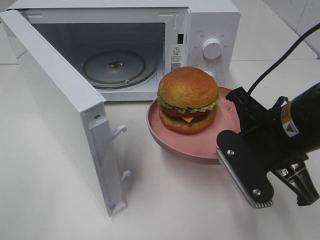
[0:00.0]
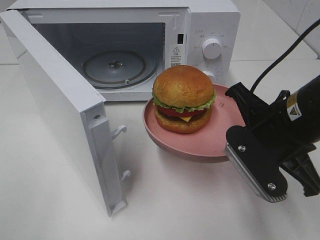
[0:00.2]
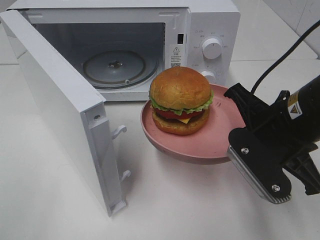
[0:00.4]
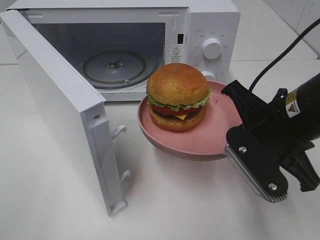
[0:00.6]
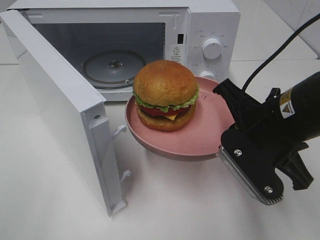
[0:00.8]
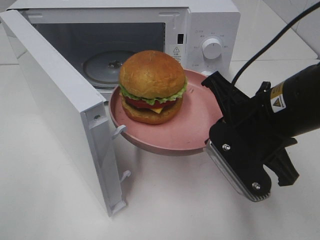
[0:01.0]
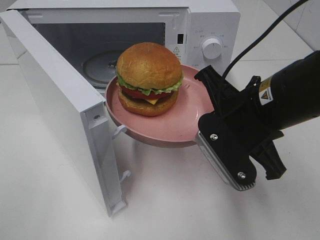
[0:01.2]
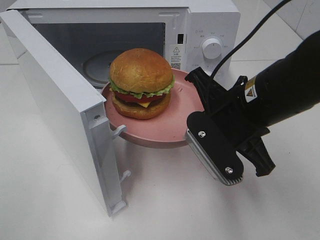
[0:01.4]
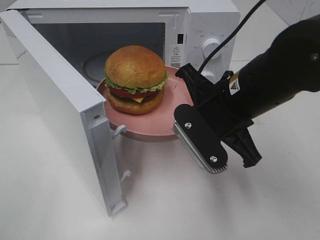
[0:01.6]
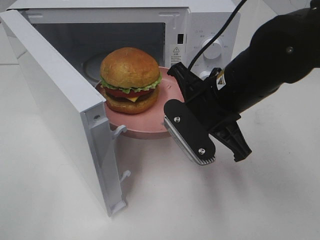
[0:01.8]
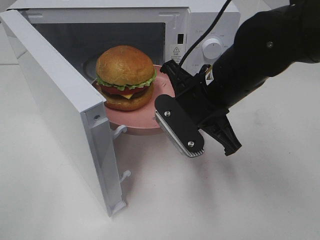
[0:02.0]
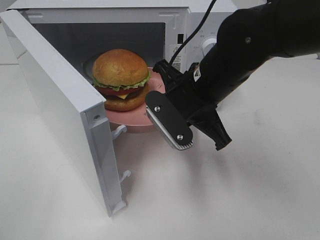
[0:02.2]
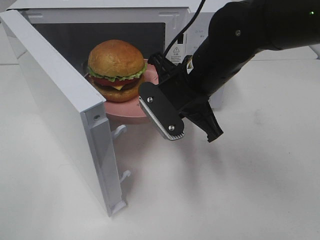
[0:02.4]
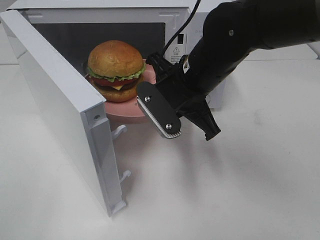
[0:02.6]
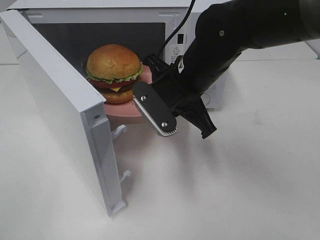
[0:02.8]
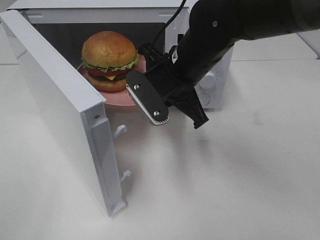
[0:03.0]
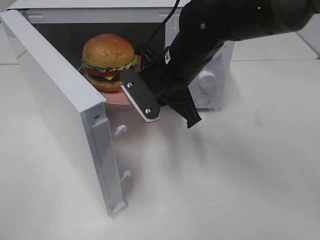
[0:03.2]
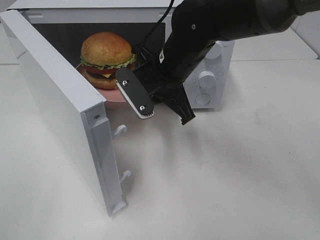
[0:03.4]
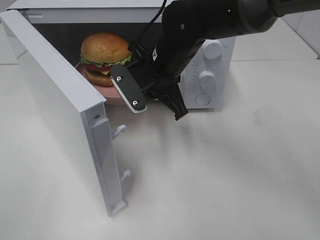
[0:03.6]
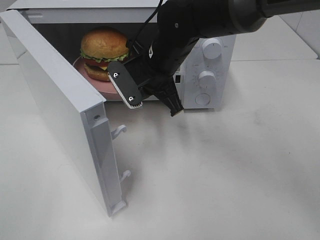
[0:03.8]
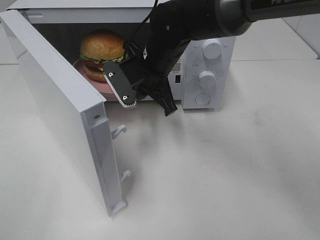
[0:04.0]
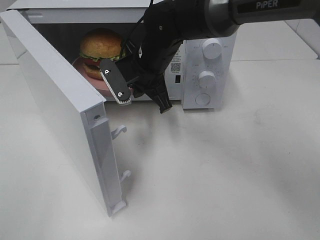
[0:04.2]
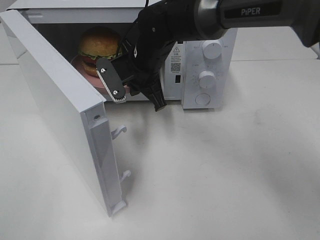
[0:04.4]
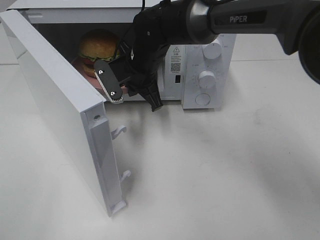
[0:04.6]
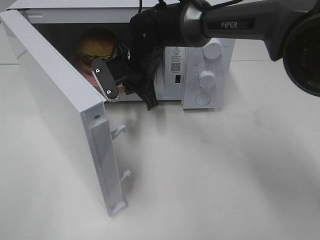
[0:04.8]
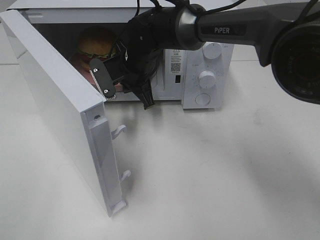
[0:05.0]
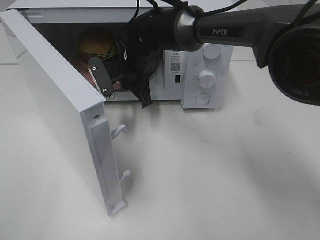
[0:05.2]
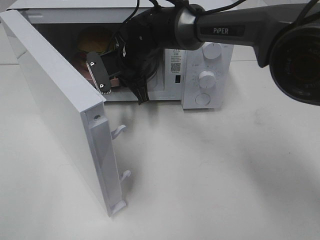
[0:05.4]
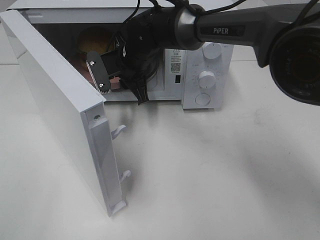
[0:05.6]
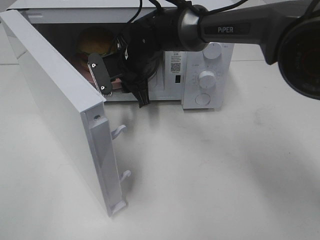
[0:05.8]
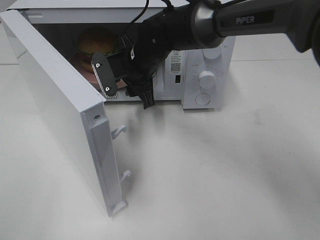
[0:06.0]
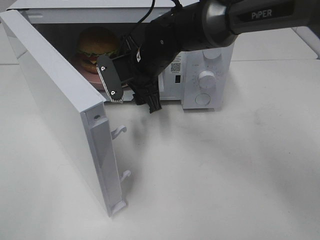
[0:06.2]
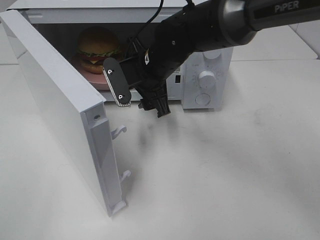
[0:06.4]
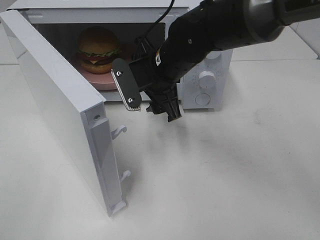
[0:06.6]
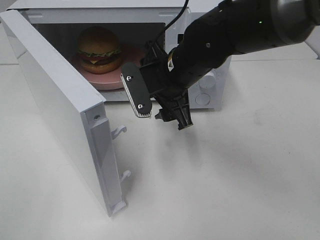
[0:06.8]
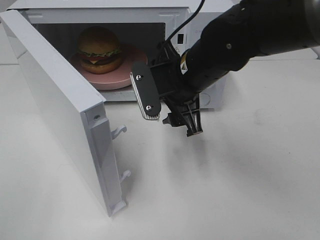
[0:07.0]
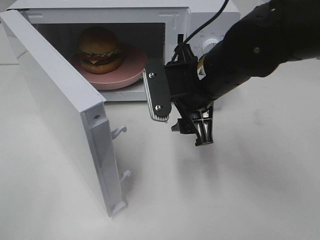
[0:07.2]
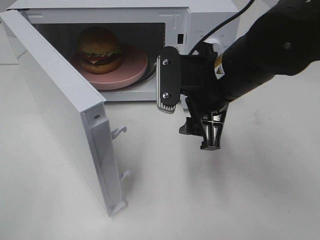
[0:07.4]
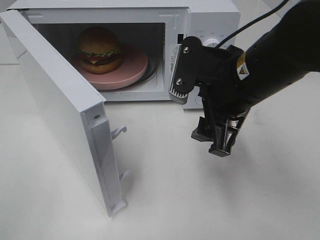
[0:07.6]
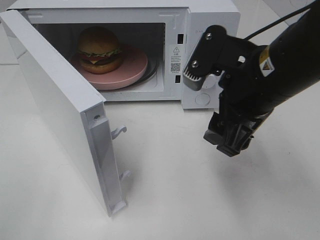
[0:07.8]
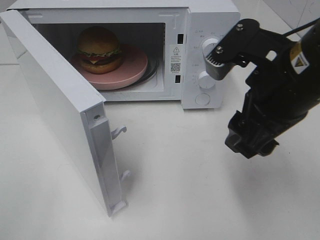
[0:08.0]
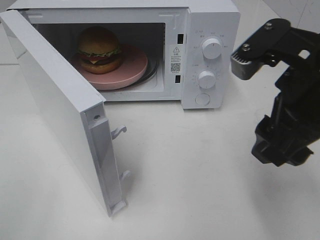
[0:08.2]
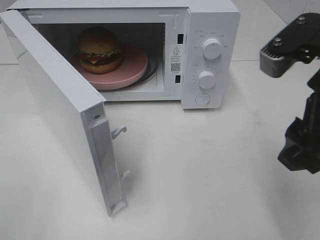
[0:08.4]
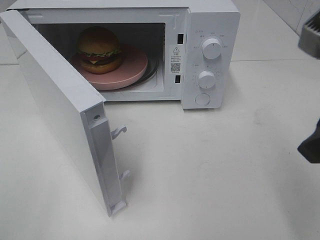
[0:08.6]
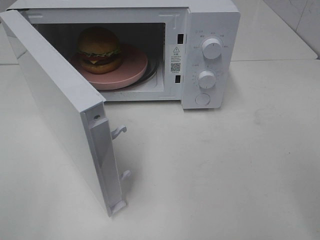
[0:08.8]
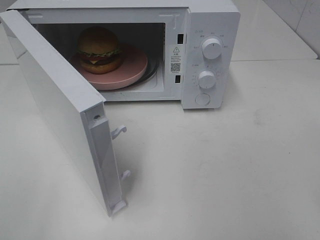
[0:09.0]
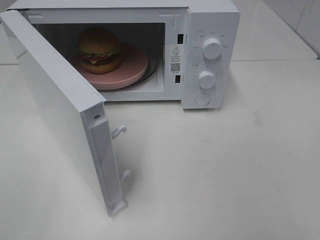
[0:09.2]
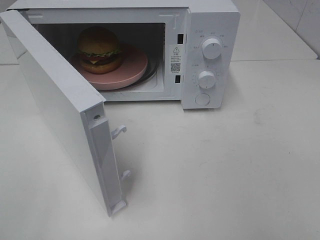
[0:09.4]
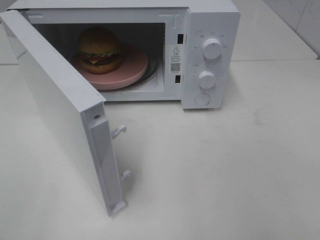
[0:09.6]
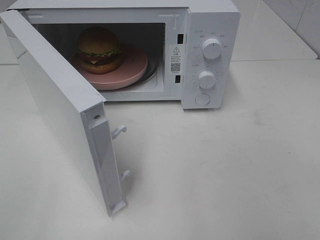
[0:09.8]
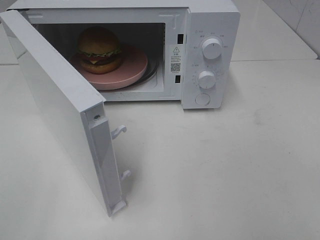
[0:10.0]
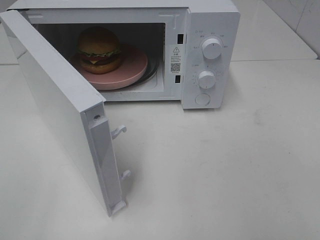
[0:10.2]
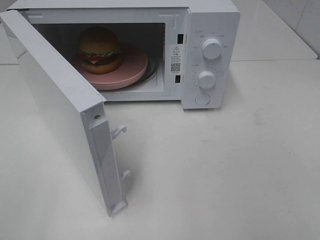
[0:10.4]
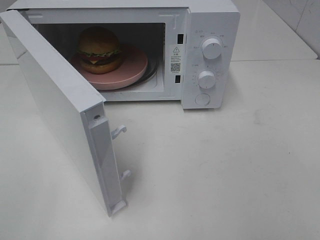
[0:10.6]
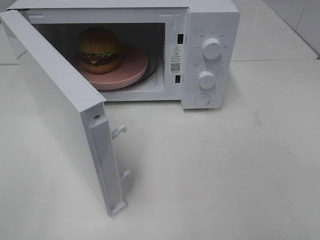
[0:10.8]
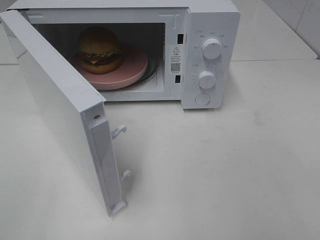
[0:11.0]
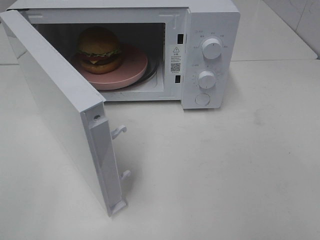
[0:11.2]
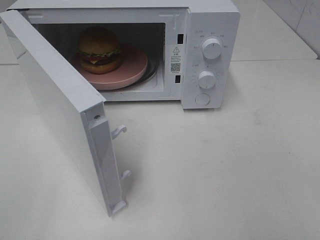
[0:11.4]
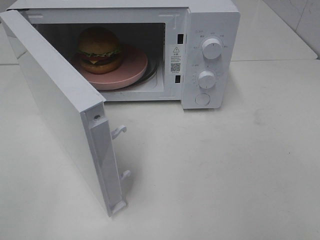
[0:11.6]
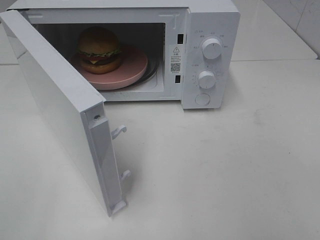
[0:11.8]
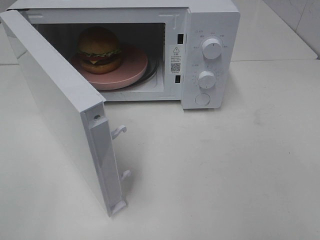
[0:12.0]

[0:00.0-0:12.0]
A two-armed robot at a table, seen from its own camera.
Task of the whole recording: Heat the burger.
Step, 0:00.0 to 0:06.0: Right hand: place the plate in the microwave.
0:00.0 to 0:01.6: The right gripper shifts by approximately 5 cm.
0:01.6 to 0:03.0: The right gripper moves forward and to the left, roughly 10 cm.
0:03.0 to 0:04.4: The right gripper heads forward and to the left, covering about 10 cm.
0:04.4 to 0:06.0: The right gripper opens.
0:06.0 to 0:07.6: The right gripper shifts roughly 20 cm backward, to the right and upward.
0:07.6 to 0:09.0: The right gripper heads to the right, backward and upward, covering roughly 20 cm.
0:10.4 to 0:12.0: Neither gripper changes place.

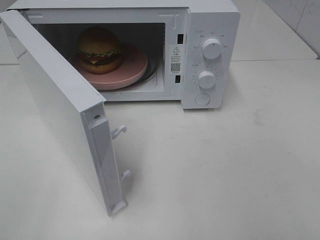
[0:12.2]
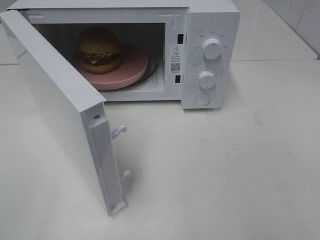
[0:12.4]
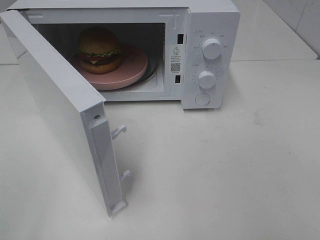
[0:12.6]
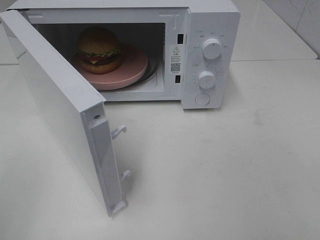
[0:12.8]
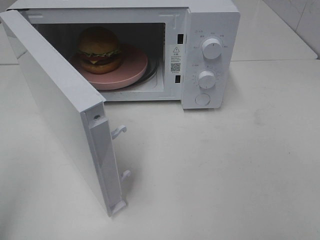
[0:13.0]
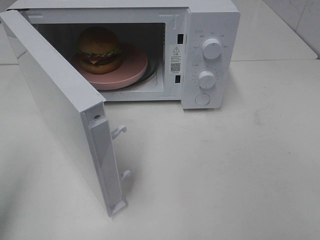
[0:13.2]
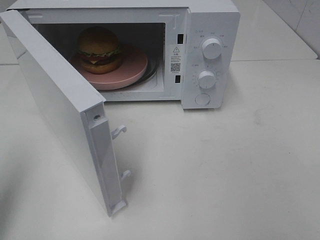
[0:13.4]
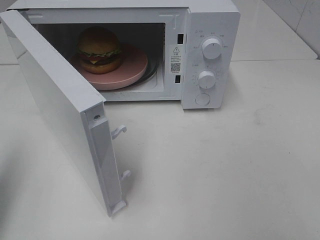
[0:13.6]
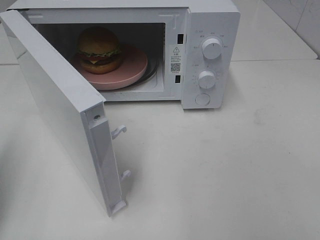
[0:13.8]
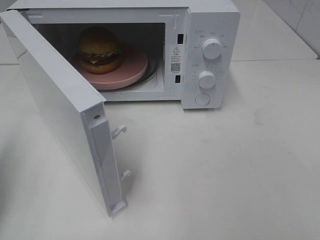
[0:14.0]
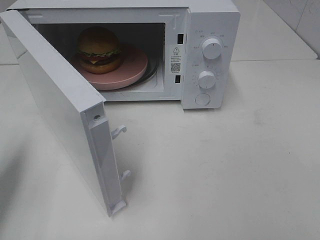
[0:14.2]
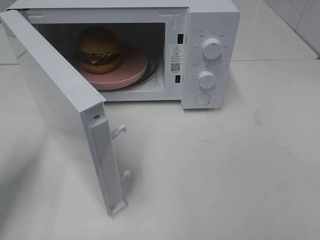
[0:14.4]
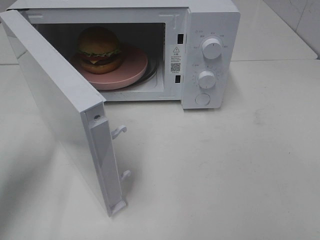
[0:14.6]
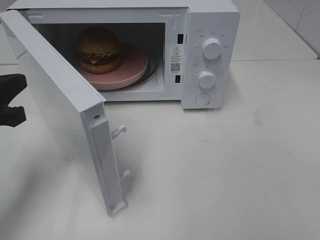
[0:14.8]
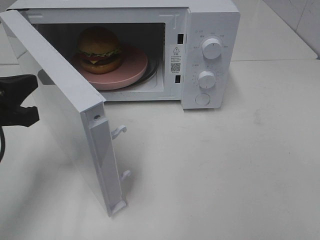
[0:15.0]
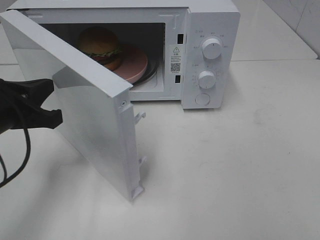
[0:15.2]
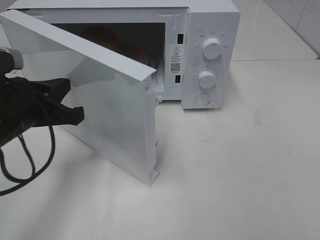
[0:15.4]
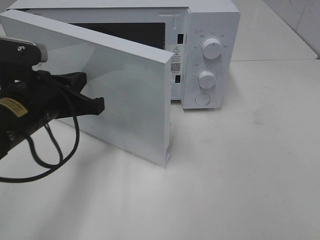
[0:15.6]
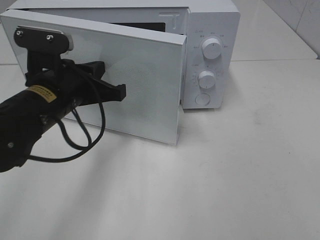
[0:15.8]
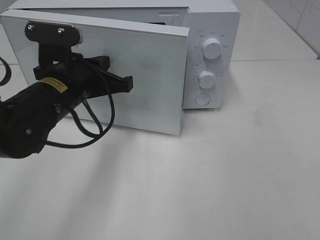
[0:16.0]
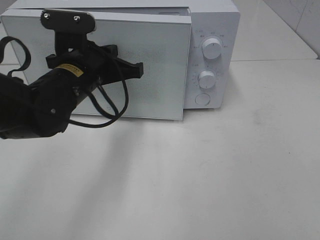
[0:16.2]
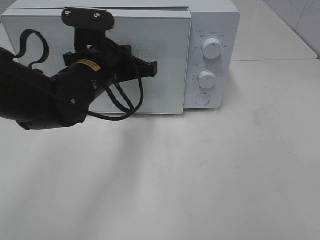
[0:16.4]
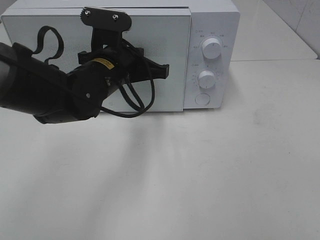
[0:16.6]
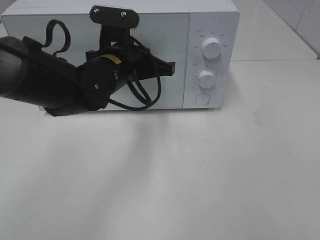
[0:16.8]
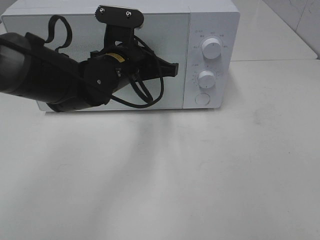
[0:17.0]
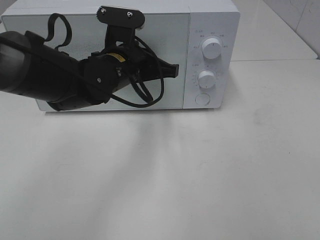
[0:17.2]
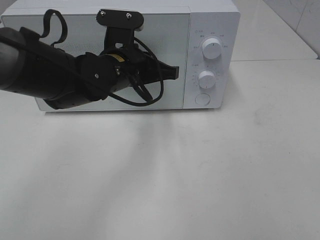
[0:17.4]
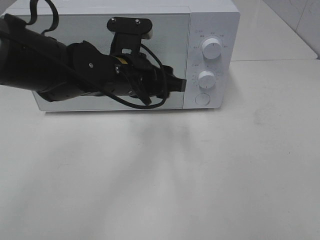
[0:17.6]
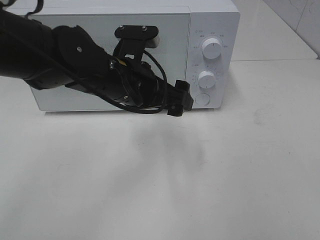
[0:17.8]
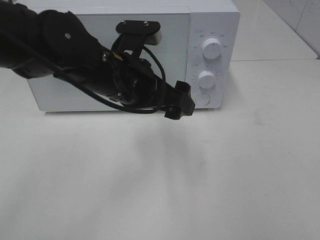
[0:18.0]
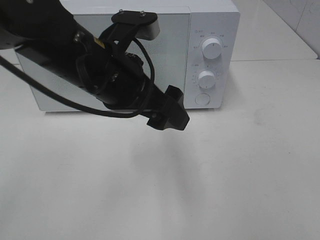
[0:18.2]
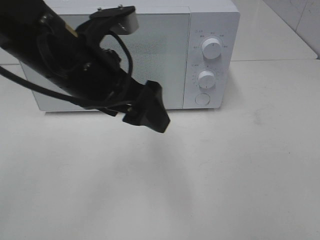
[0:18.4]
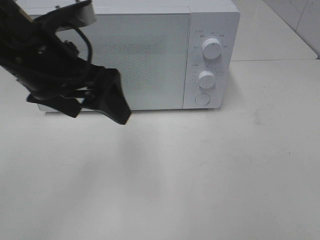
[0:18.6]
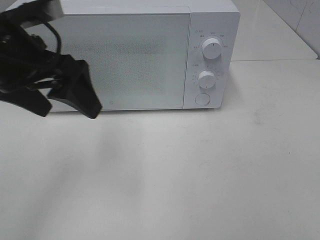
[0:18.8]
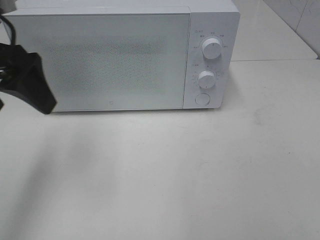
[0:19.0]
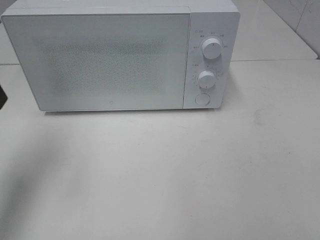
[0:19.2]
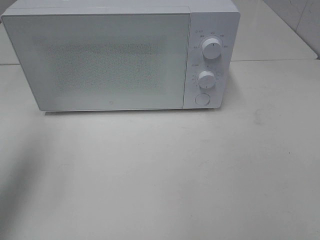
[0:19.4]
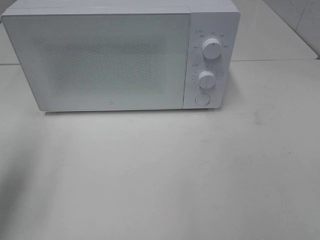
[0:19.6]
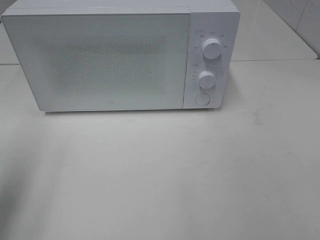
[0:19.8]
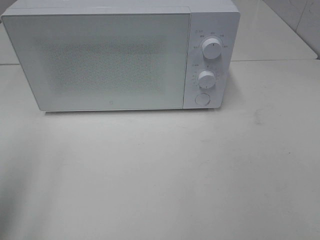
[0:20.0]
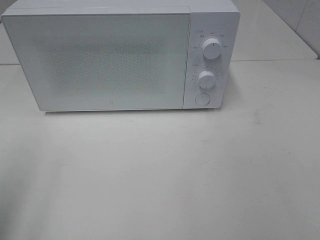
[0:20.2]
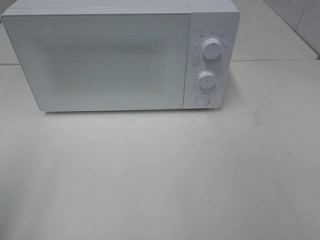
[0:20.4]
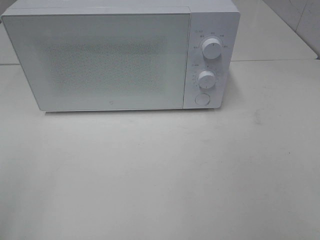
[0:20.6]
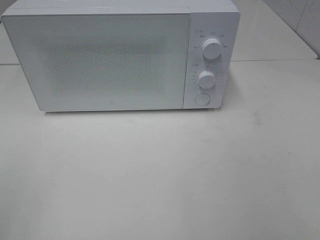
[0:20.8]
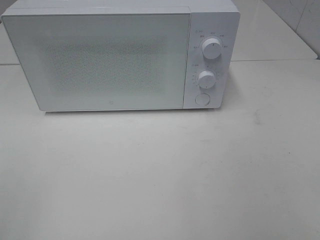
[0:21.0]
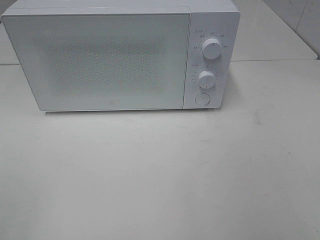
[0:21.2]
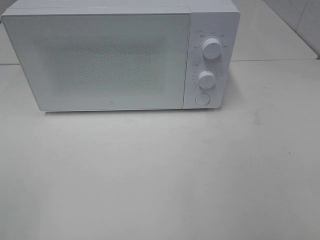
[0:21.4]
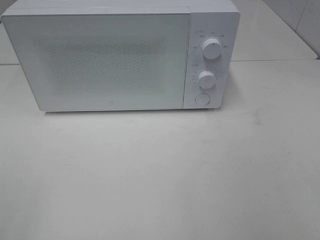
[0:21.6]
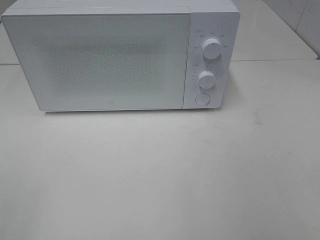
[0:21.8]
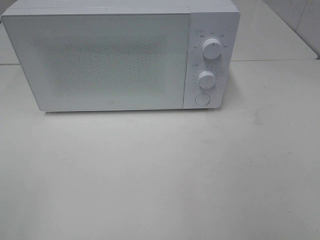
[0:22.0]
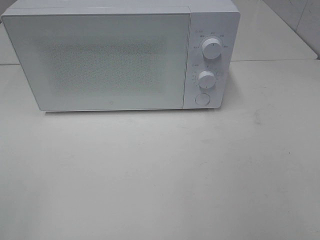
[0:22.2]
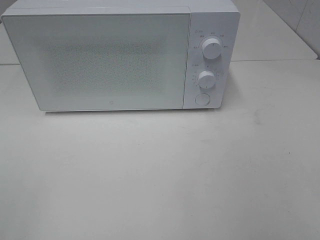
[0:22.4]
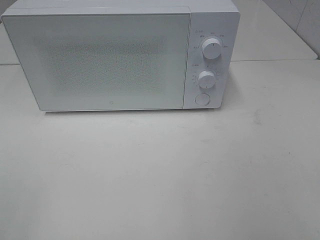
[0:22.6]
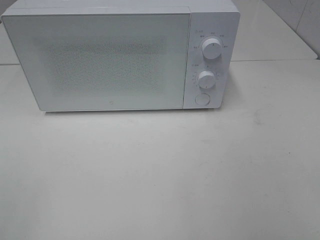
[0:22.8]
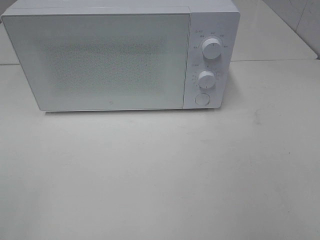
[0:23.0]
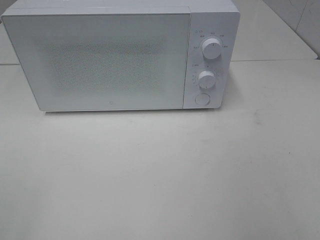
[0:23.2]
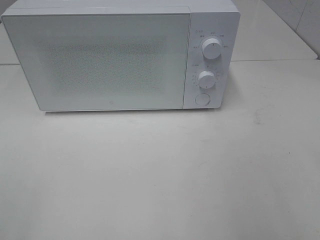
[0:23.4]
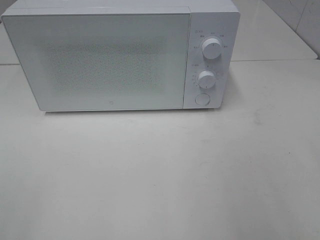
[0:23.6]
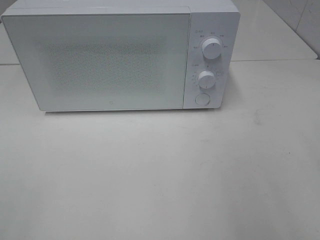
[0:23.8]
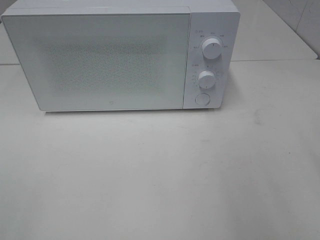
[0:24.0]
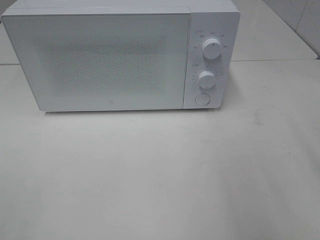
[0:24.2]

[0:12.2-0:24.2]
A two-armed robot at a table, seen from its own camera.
Task of the whole recording: Heat the burger.
Step, 0:12.2 to 0:18.0: Left hand: close the microwave door.
0:12.2 to 0:13.8: The left gripper moves forward, about 15 cm, and closes.
0:13.8 to 0:15.2: The left gripper heads to the right, downward and forward, covering approximately 15 cm.
0:15.2 to 0:16.6: The left gripper heads to the right and forward, covering approximately 20 cm.
0:16.6 to 0:18.2: The left gripper moves backward and upward, approximately 10 cm, and opens up.
0:18.2 to 0:19.8: The left gripper is displaced to the left by approximately 25 cm.
0:19.8 to 0:21.2: The left gripper shifts some 15 cm backward.
0:21.2 to 0:22.6: The two grippers keep their place.
